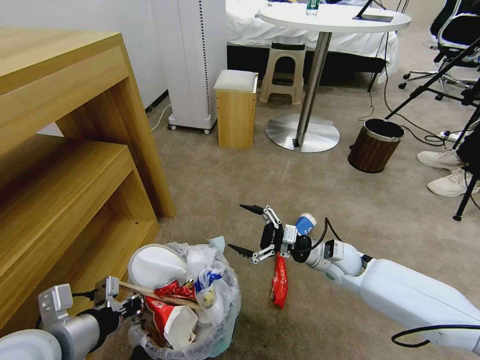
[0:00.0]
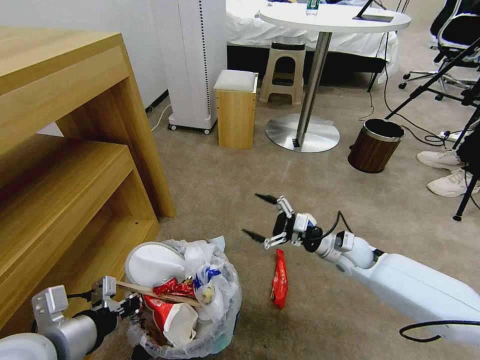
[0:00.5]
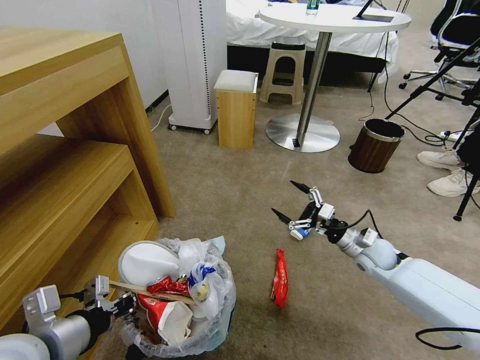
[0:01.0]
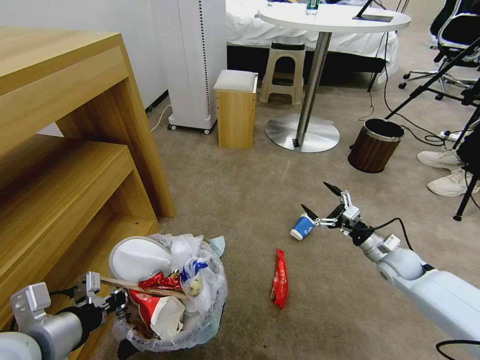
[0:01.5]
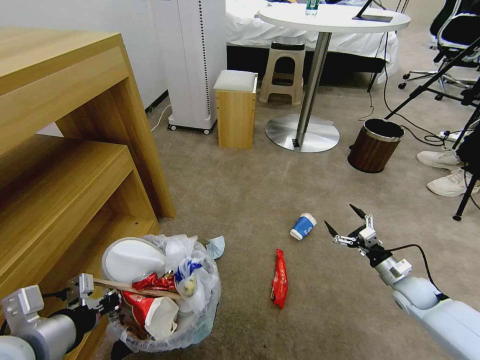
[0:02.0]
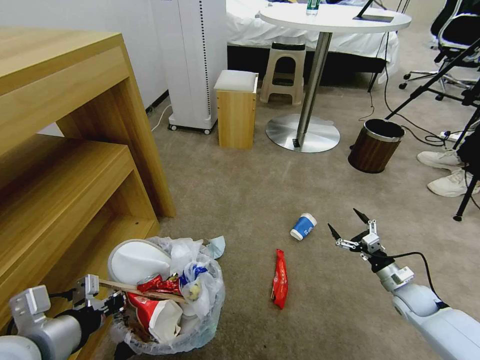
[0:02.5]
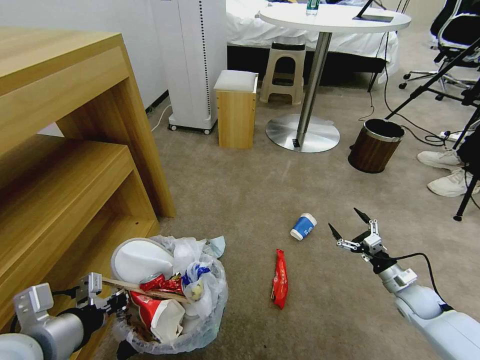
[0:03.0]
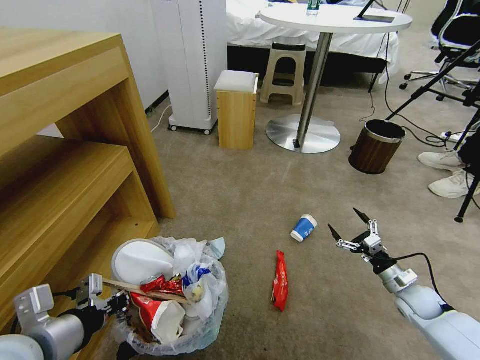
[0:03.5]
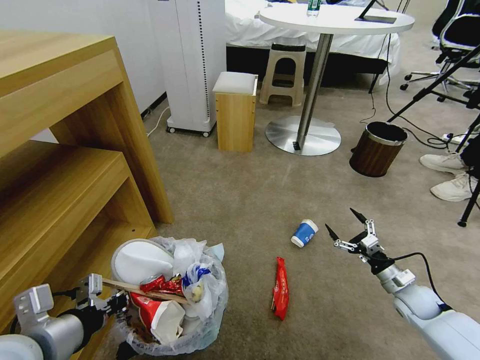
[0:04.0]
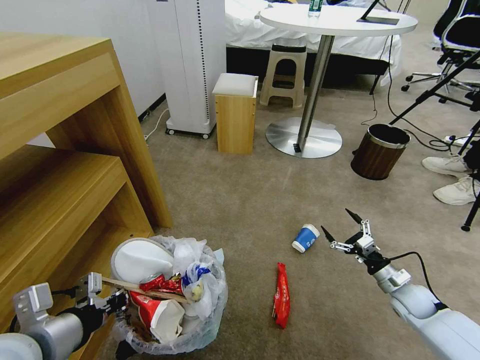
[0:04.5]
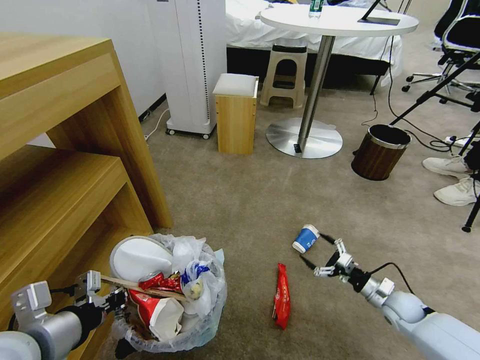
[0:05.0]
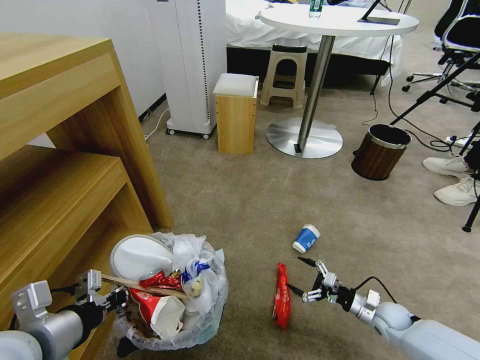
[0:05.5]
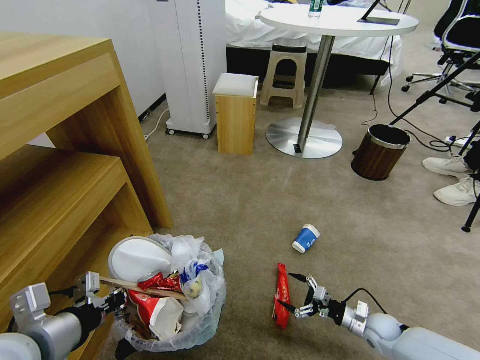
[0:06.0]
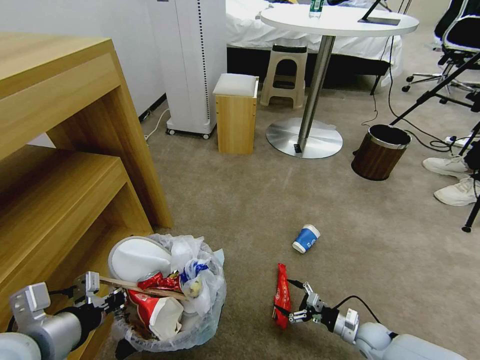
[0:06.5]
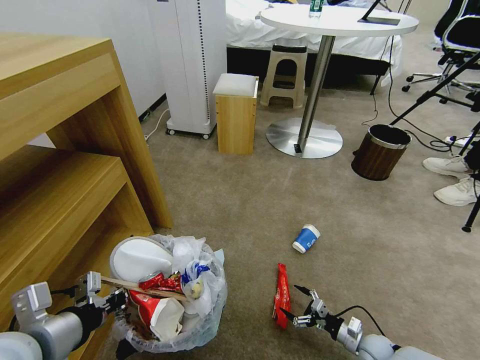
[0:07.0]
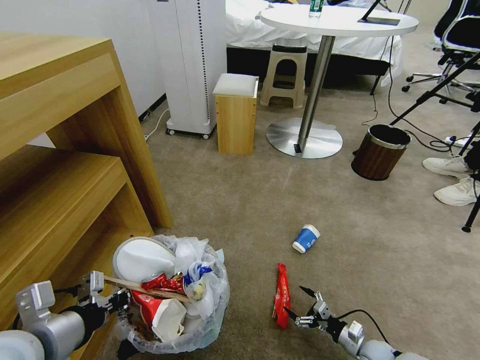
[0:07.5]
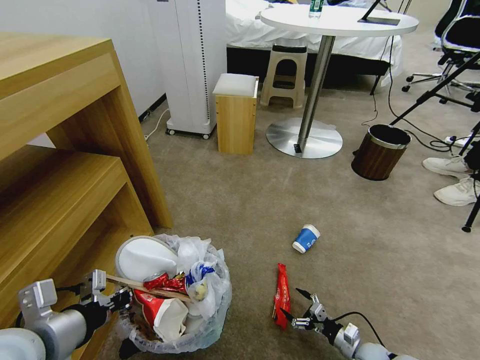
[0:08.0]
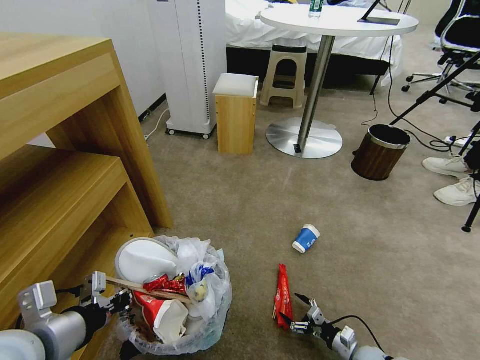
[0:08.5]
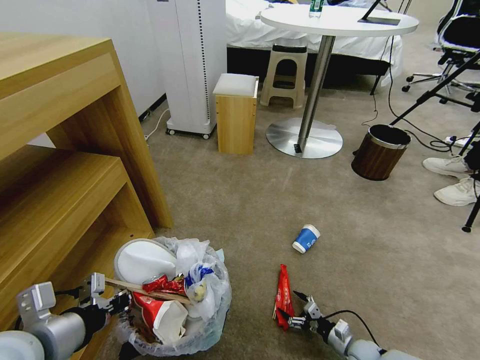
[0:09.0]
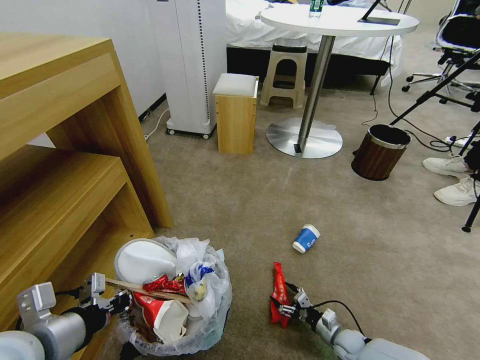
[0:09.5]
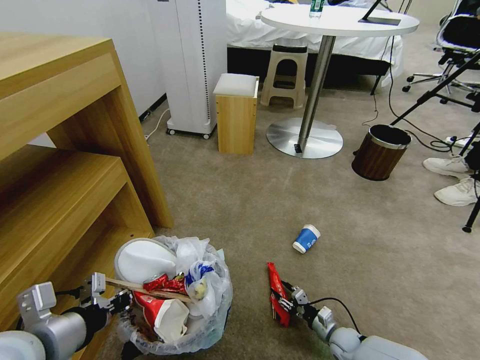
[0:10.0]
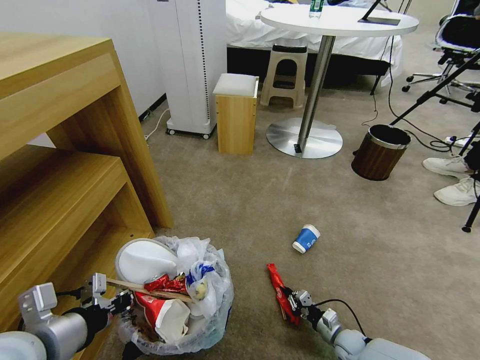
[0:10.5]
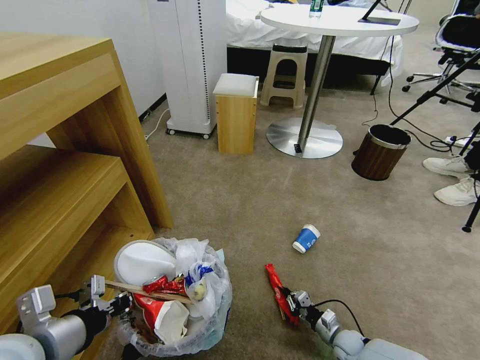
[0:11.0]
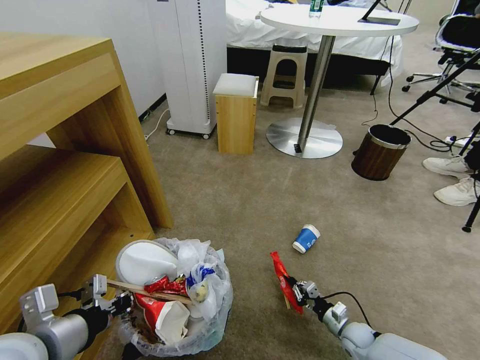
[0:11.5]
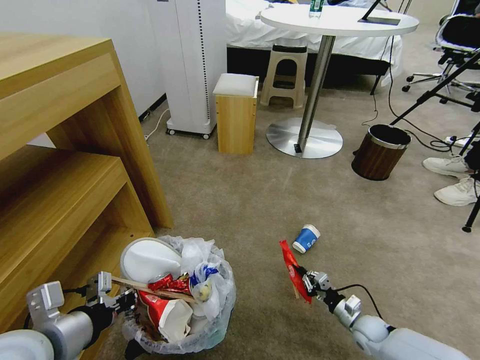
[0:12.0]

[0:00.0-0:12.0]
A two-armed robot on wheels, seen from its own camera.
Task of the whole recording: Pick up the trash bin and place the garbage on the floor into it.
0:00.0 to 0:02.0: The right gripper is displaced to the right and downward by approximately 25 cm.
0:02.0 to 0:04.0: The grippers make only small movements.
0:04.0 to 0:06.0: The right gripper is displaced downward and to the left by roughly 10 cm.
0:06.0 to 0:08.0: The right gripper shifts some 10 cm downward and backward.
0:08.0 to 0:10.0: The right gripper moves to the left, roughly 5 cm, and closes up.
0:10.0 to 0:12.0: The right gripper travels upward and to the right by some 10 cm, and closes its fingers.

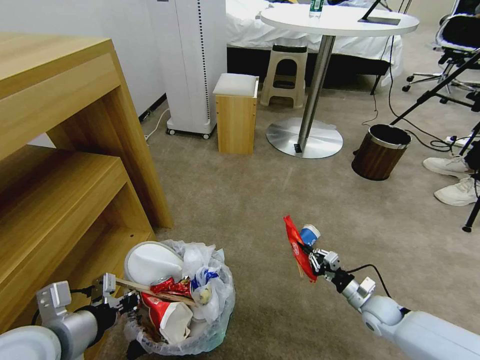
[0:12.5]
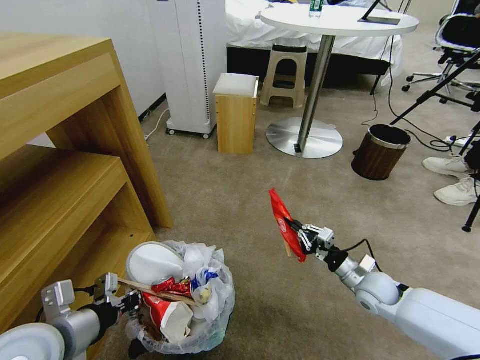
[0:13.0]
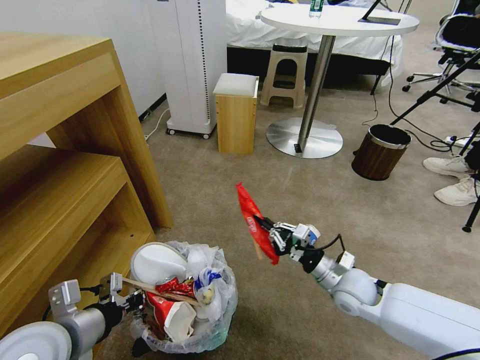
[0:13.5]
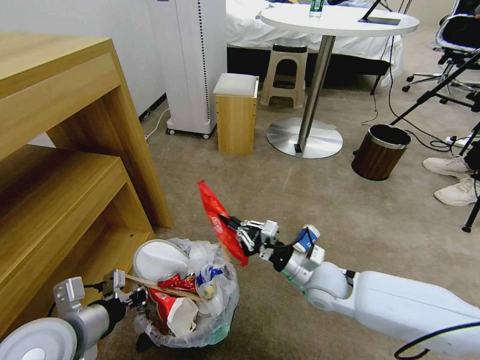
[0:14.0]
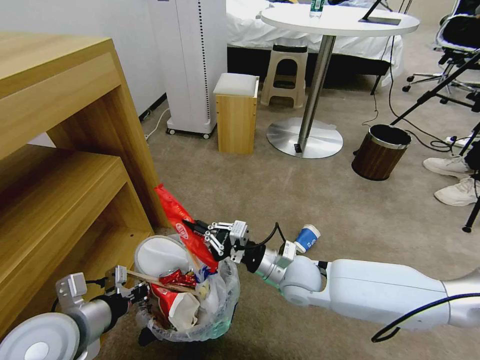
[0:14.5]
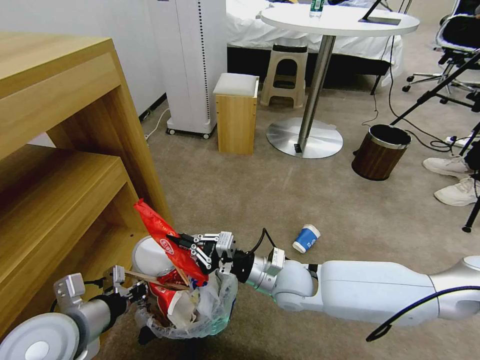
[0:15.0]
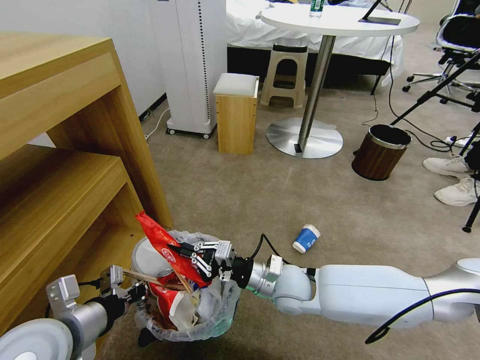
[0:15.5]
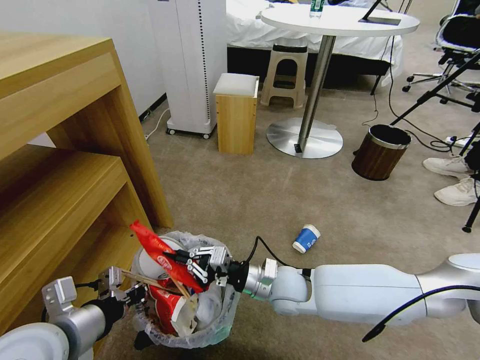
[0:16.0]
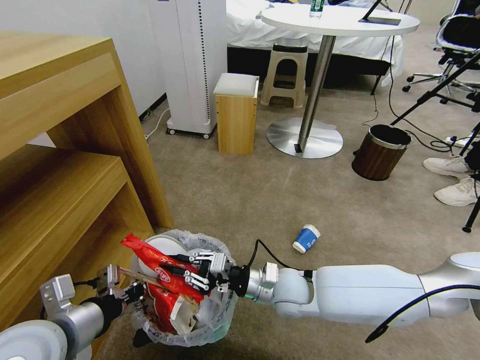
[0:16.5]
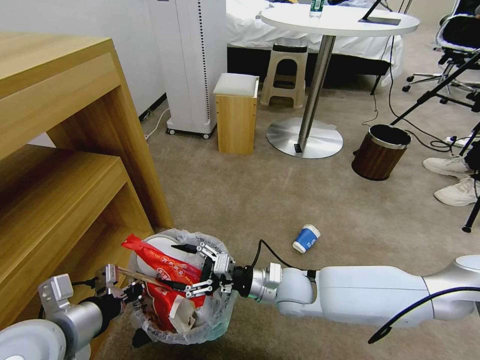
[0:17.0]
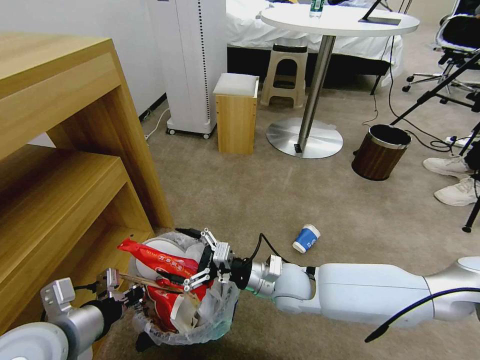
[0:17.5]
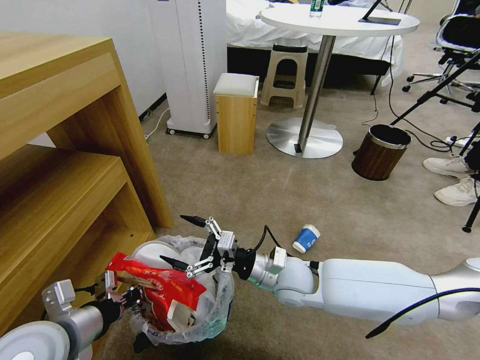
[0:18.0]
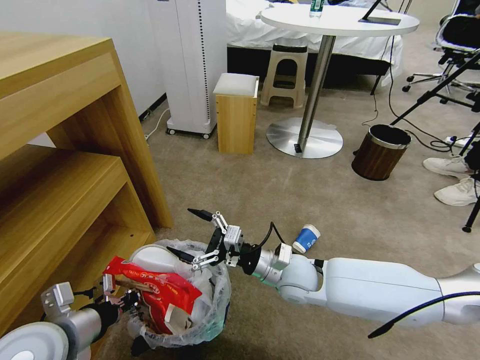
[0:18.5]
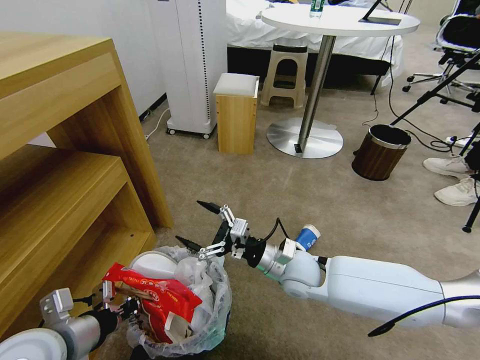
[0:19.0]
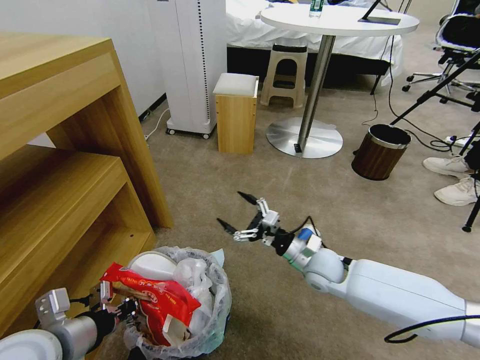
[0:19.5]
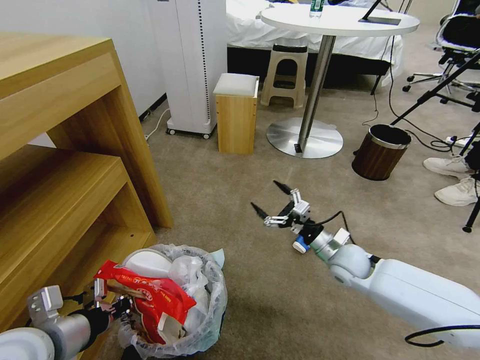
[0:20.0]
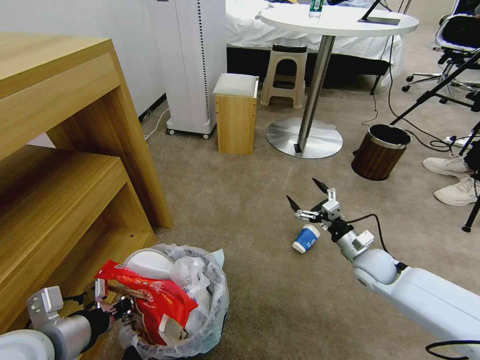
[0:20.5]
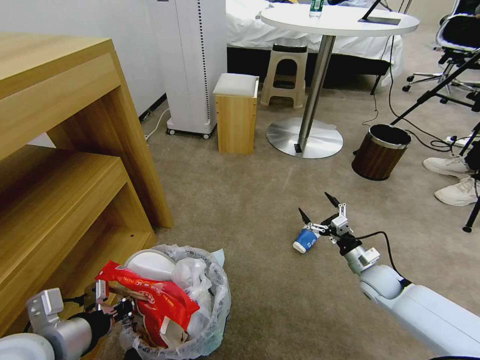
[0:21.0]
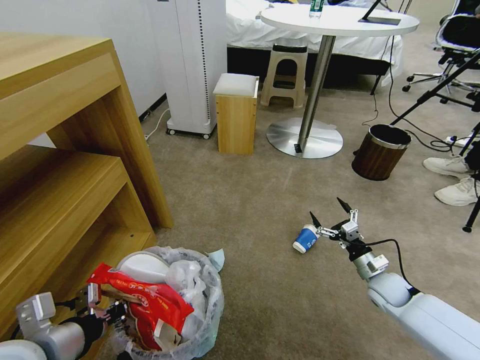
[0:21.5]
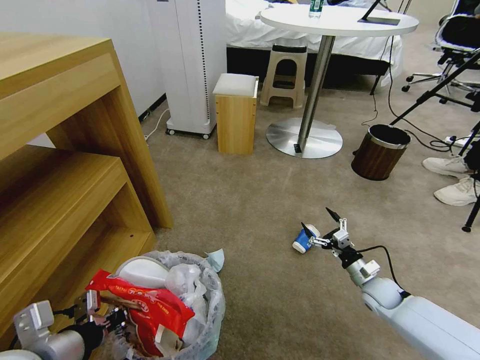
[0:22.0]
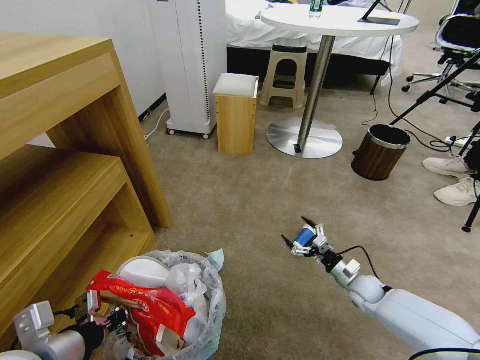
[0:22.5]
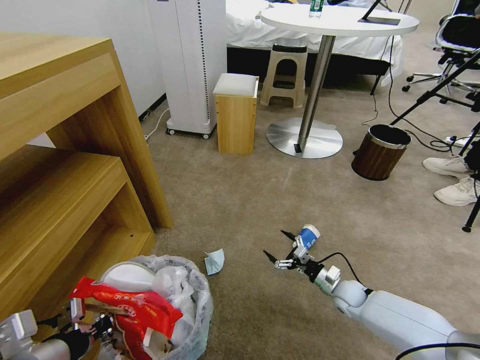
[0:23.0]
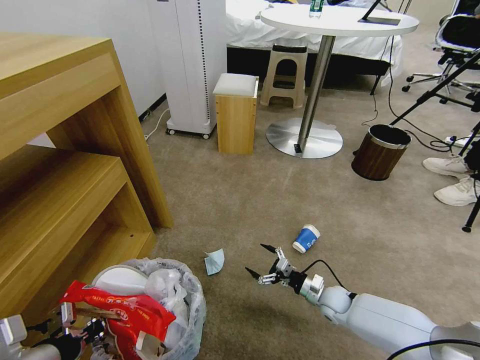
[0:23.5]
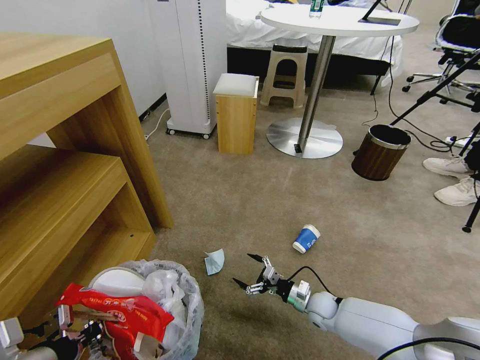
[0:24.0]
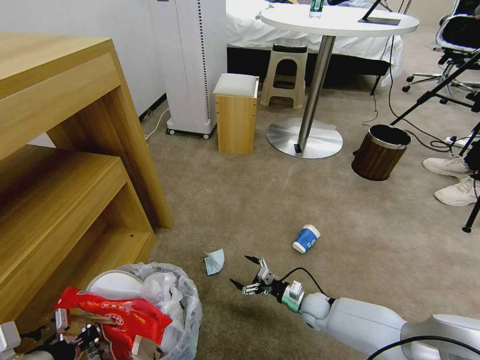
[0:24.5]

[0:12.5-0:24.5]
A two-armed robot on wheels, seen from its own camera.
Task of the whole recording: Pick up the trash bin and place the garbage on the floor into it.
0:12.5 to 0:14.5: The right gripper shifts approximately 30 cm to the left and upward.
0:14.5 to 0:16.5: The grippers stay close to where they were, moving slightly.
0:16.5 to 0:18.5: The right gripper opens.
0:18.5 to 0:20.5: The right gripper goes some 20 cm to the right.
0:20.5 to 0:22.5: The right gripper travels downward by roughly 10 cm.
0:22.5 to 0:24.5: The right gripper heads to the left and downward, covering some 15 cm.

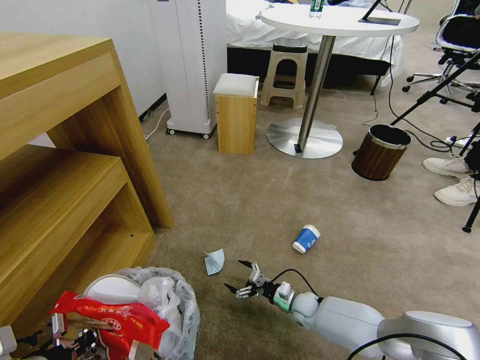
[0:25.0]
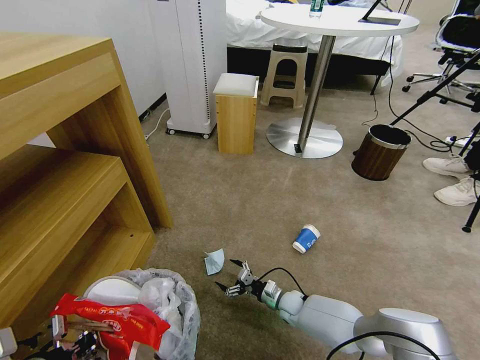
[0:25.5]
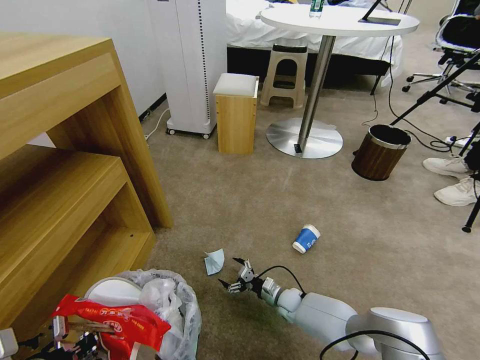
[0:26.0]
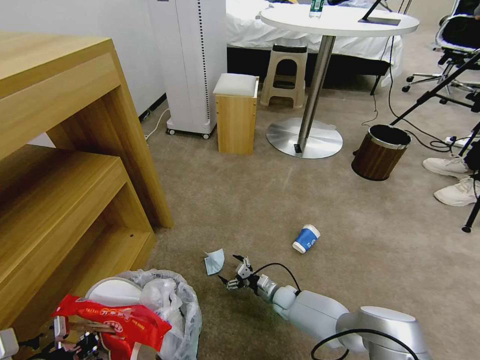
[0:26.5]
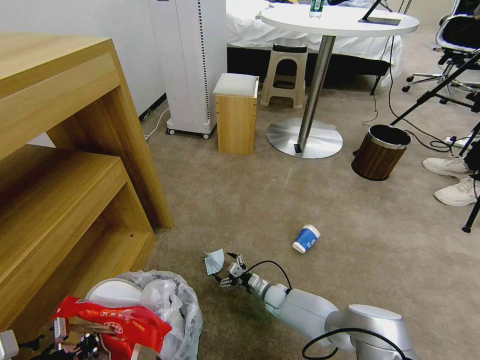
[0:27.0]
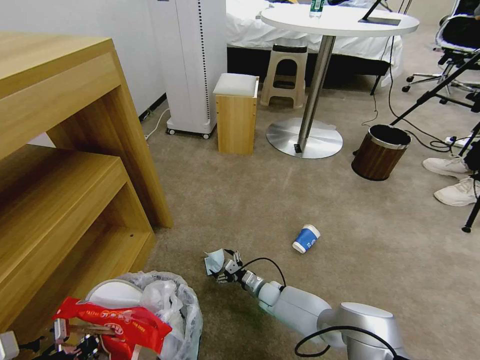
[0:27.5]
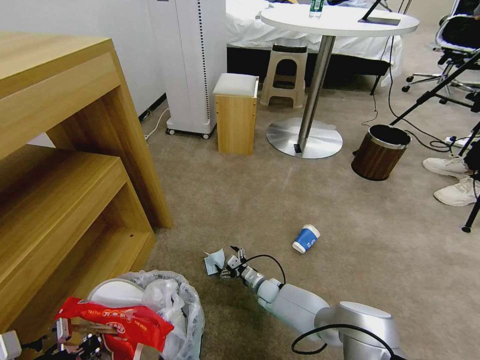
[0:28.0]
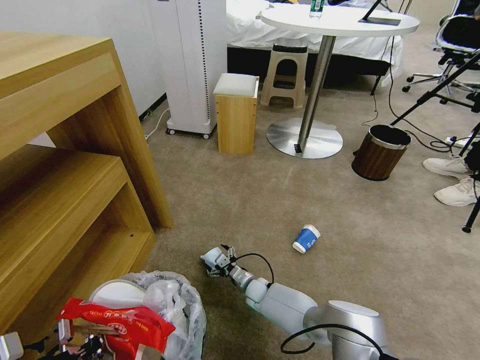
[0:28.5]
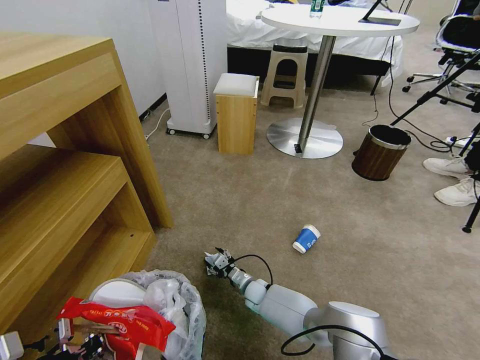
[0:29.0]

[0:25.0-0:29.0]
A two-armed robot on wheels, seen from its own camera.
Task of the whole recording: Pick up the trash bin and place the garbage on the floor into it.
0:25.0 to 0:27.0: The right gripper moves to the left, roughly 10 cm.
0:27.0 to 0:29.0: The right gripper travels to the left by roughly 5 cm, and closes up.
